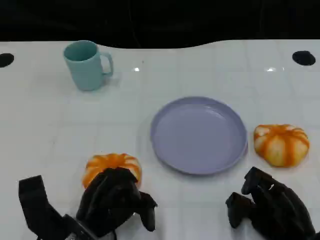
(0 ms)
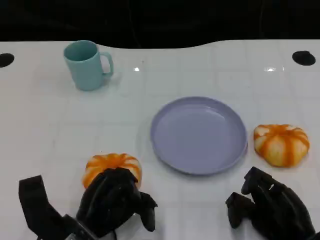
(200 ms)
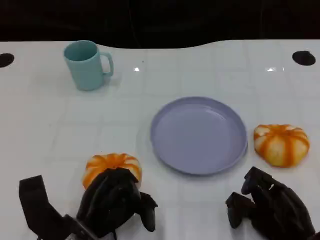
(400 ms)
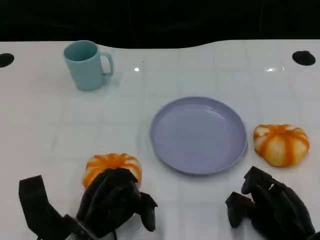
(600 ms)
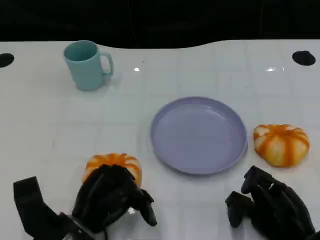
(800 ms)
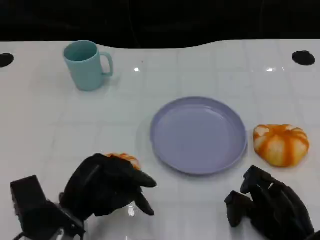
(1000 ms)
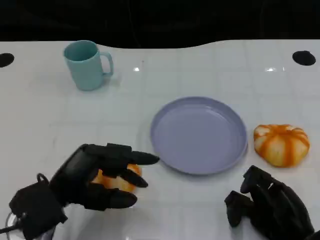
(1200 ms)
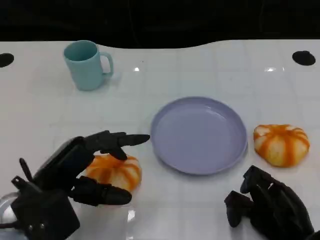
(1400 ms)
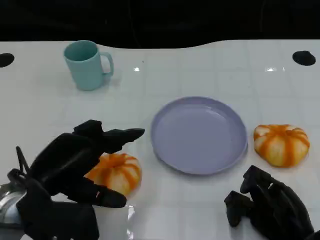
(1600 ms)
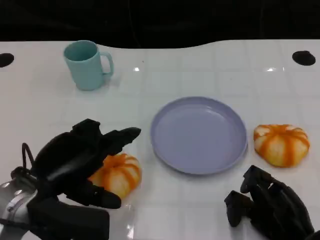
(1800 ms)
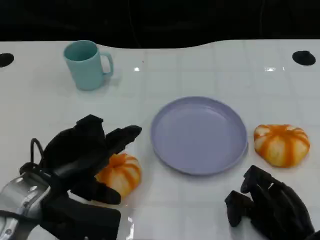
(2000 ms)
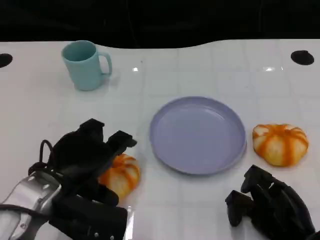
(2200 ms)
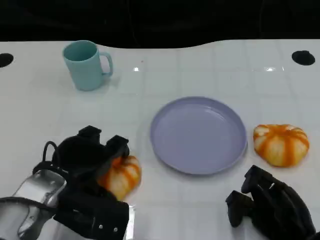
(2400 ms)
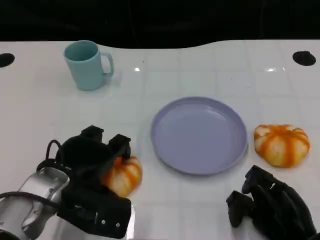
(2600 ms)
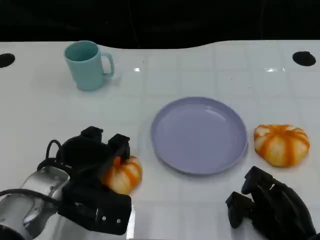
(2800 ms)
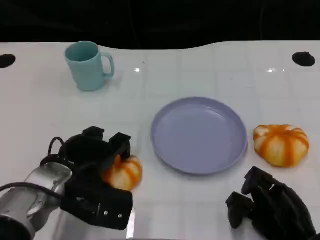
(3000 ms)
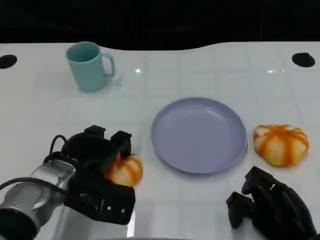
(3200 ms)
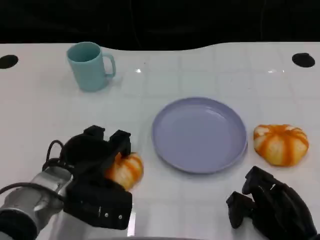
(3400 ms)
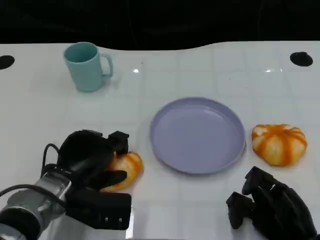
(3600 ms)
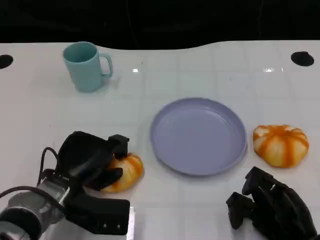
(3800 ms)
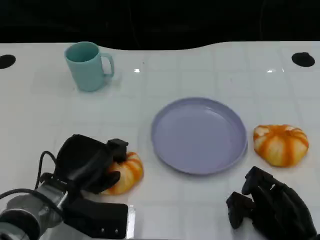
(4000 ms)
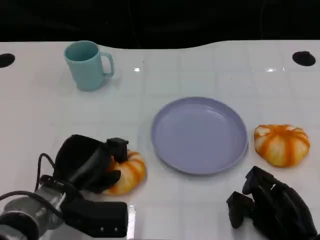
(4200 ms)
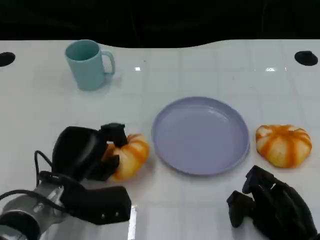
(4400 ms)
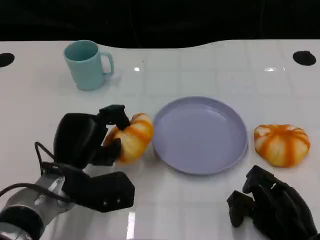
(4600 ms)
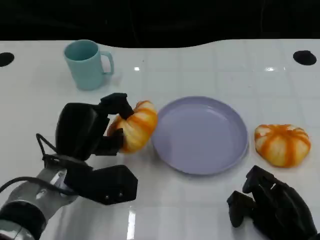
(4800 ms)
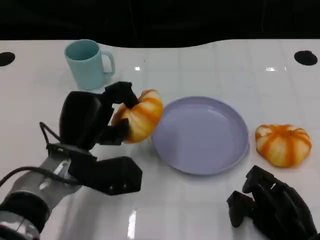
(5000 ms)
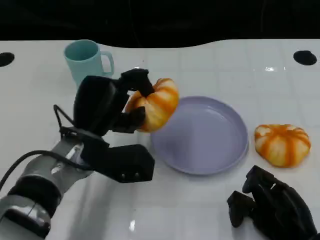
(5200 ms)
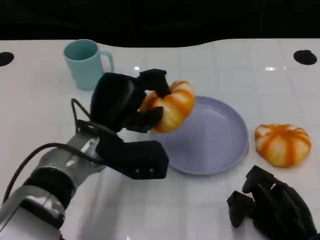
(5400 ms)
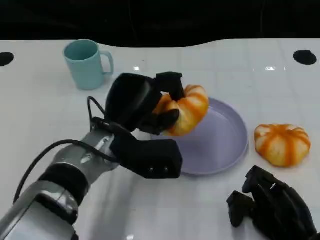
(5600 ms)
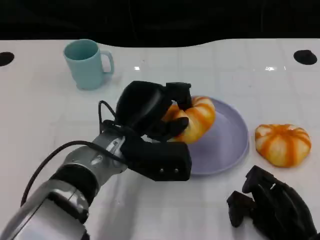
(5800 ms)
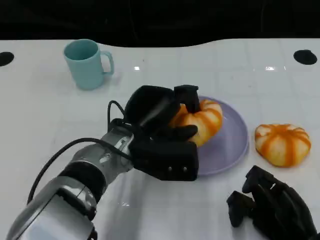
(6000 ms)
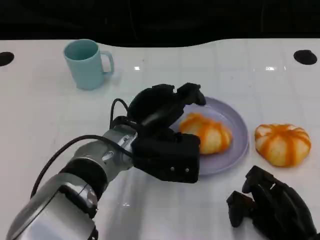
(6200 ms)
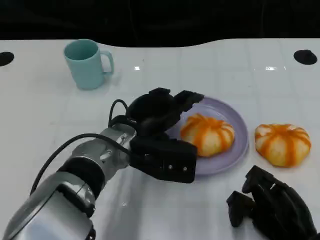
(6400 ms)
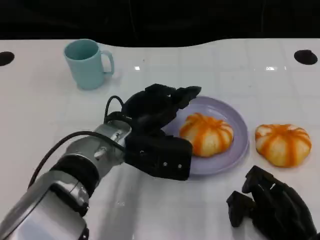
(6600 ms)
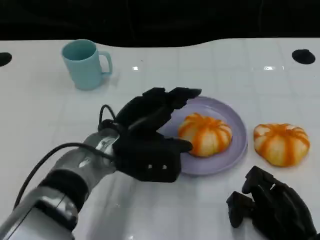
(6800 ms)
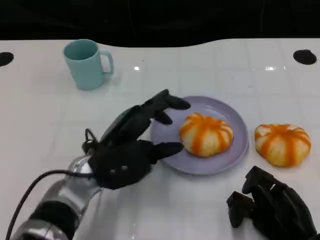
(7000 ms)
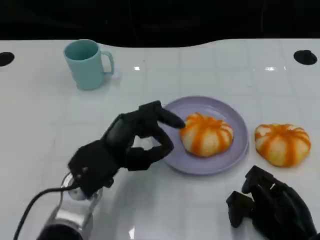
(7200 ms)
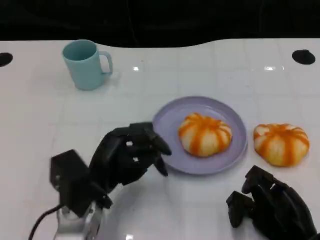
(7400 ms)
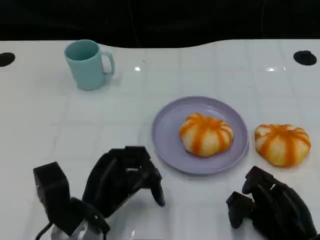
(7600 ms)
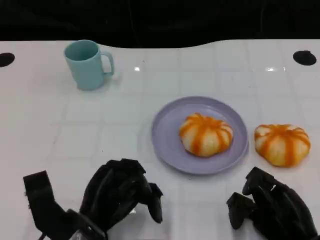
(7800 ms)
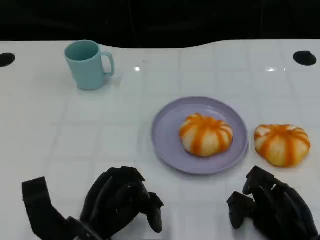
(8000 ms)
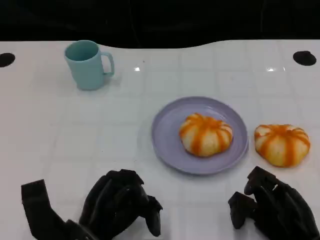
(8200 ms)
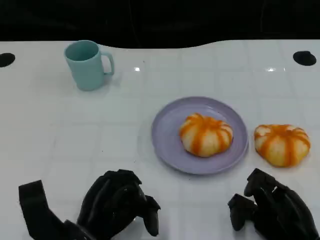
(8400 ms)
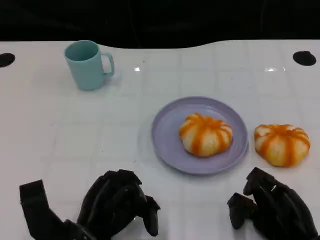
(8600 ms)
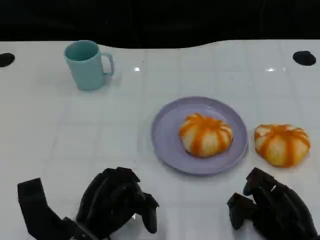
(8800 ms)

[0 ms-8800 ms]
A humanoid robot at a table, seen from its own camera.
Task of the whole recording: Grasp the bread from the table and place it into the plate.
0 ms to 1400 ms: The left hand shifts approximately 10 cm upward and to the left.
1400 ms to 3000 ms: The left hand shifts about 5 cm forward.
4400 ms to 5800 ms: The left hand moves to the right and upward, some 10 cm.
5800 ms to 7400 ms: The left hand heads backward and to the left, covering roughly 10 cm.
7400 ms to 8800 ms: The left hand ends up roughly 5 cm from where it was.

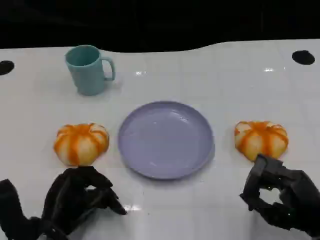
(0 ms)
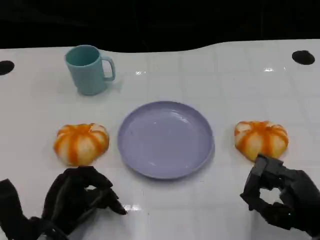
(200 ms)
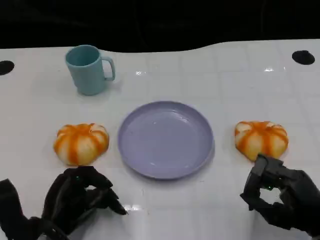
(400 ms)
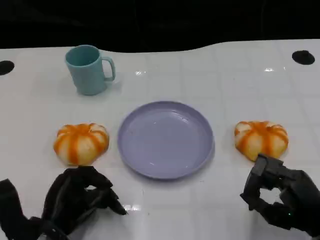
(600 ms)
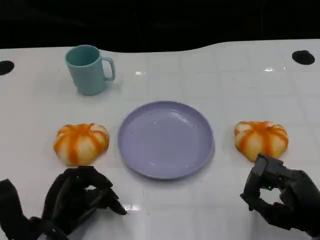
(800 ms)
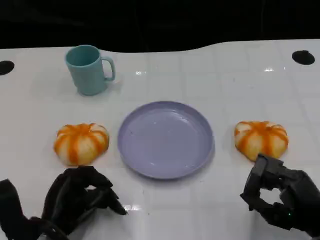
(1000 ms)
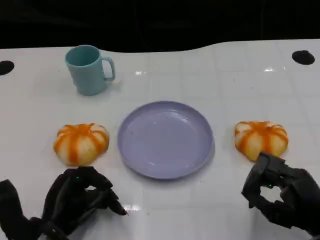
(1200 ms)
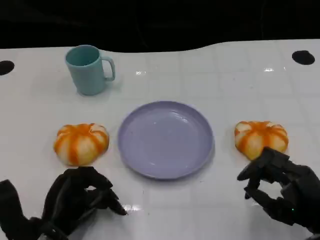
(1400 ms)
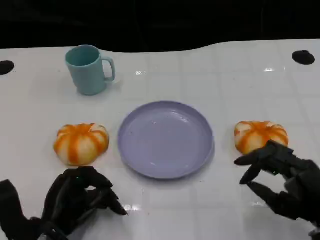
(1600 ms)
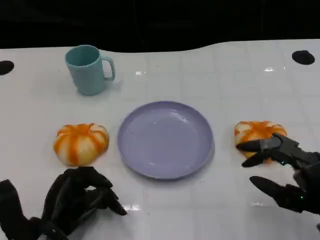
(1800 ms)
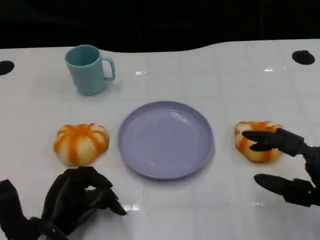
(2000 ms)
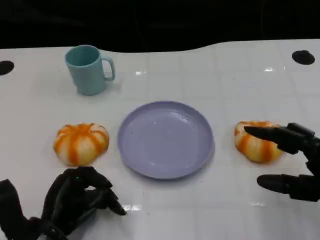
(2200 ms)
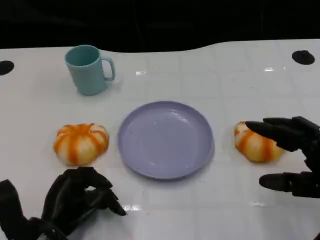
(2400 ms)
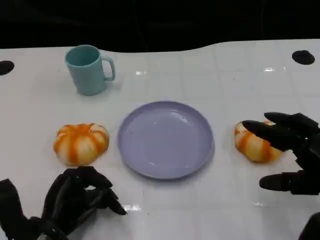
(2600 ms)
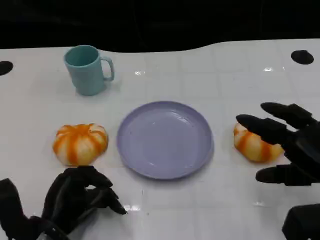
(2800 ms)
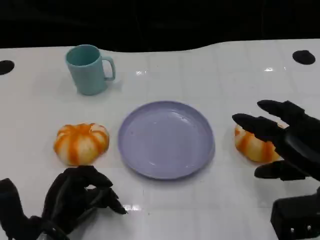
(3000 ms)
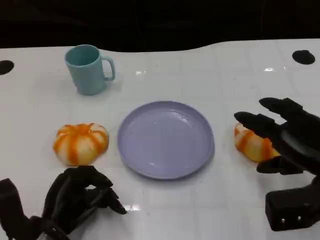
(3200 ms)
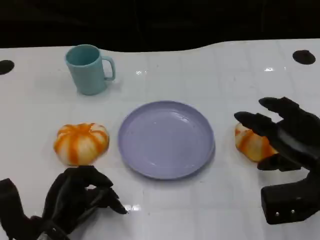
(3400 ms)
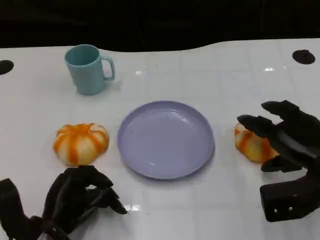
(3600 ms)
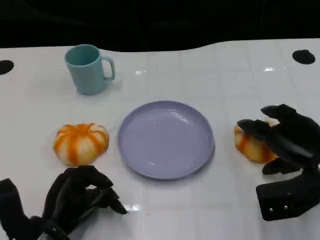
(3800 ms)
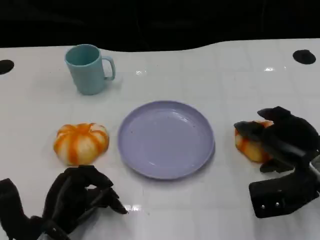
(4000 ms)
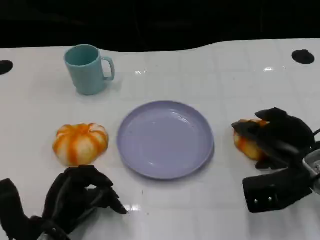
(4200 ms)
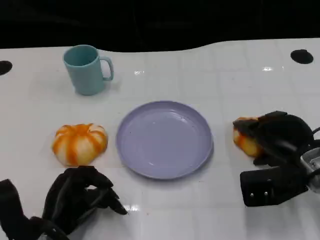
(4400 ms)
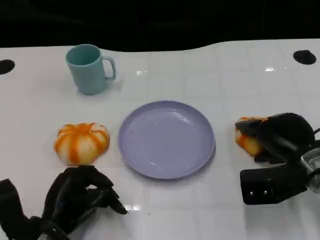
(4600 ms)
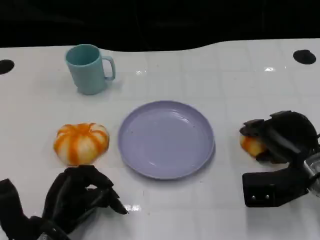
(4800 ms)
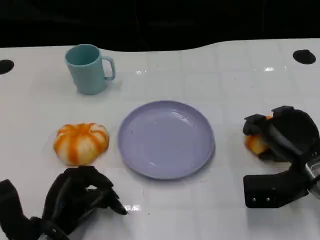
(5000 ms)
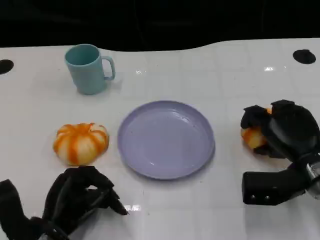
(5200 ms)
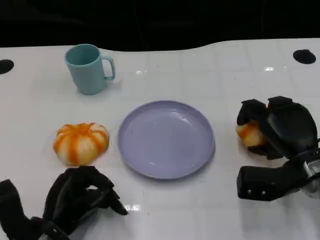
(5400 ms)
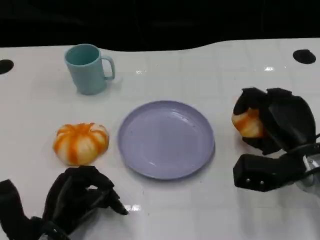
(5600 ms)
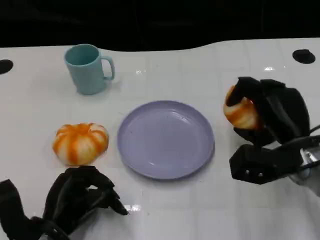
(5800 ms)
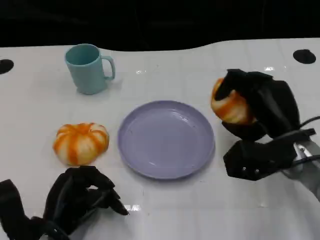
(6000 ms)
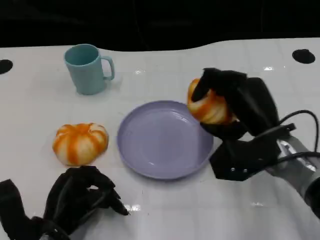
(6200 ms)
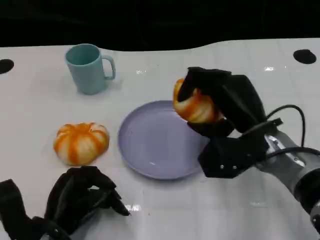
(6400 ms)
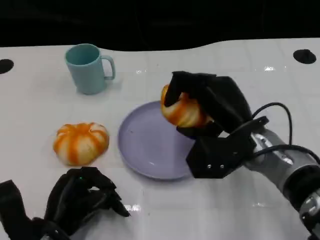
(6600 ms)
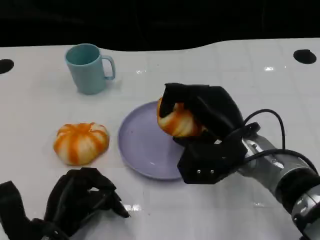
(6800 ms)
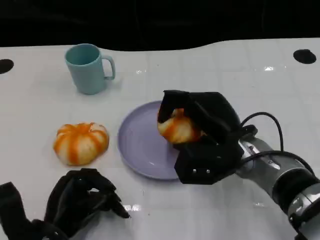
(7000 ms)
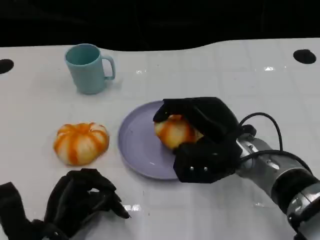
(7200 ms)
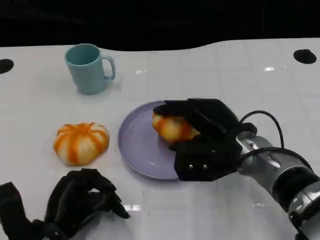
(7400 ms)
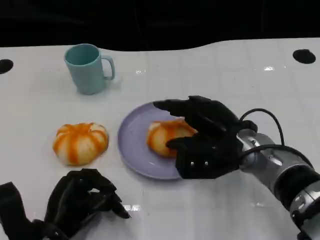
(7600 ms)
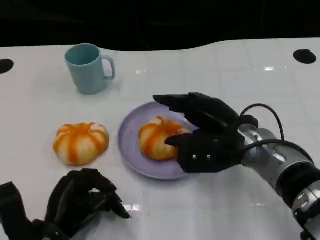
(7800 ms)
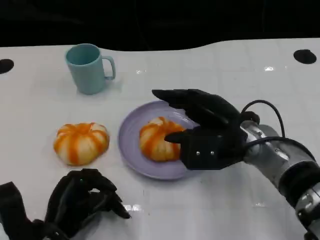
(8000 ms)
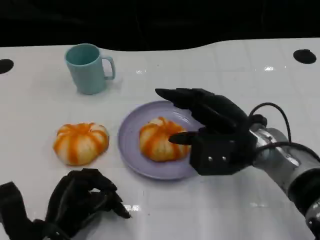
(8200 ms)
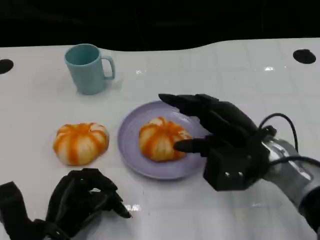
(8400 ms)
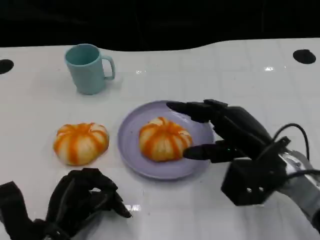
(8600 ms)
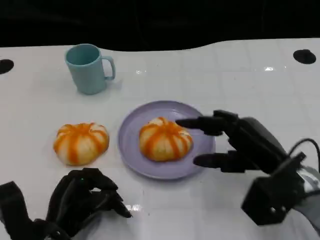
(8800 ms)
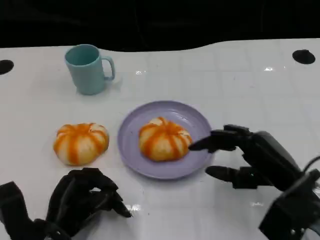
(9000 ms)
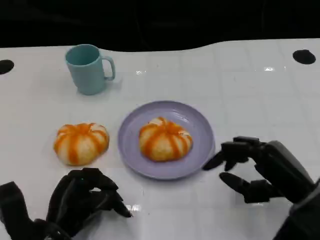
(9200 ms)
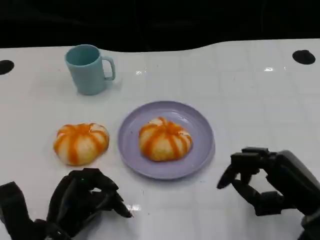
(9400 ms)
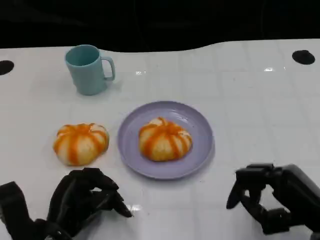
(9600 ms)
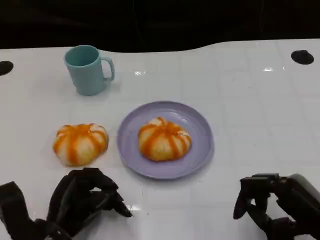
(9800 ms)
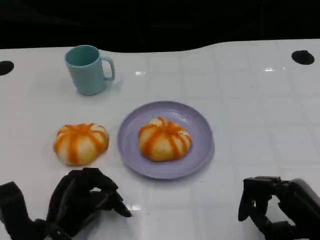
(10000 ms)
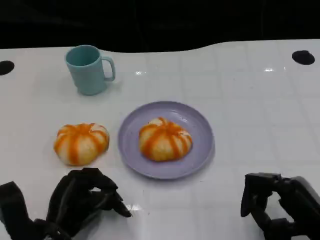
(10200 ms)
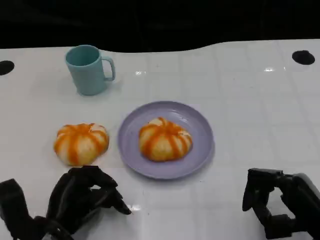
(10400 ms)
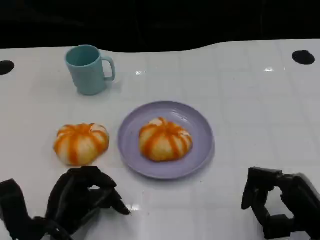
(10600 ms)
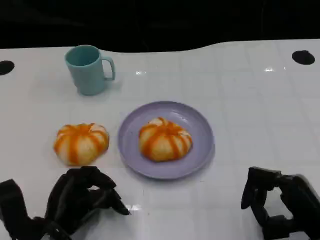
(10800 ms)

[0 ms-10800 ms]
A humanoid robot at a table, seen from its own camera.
Task of the whole recording: Grasp the bread from the table and place it into the plate.
0 ms to 1600 ms: There are only small adjustments of the hands.
1600 ms to 3000 ms: The right hand heads forward, covering approximately 5 cm.
3000 ms to 4600 ms: The right hand shifts approximately 5 cm forward.
4600 ms to 6200 ms: The right hand heads to the left, covering approximately 5 cm.
7800 ms to 9200 ms: The right hand shifts about 15 cm to the right and backward.
9200 ms to 10800 ms: The right hand shifts by some 5 cm.

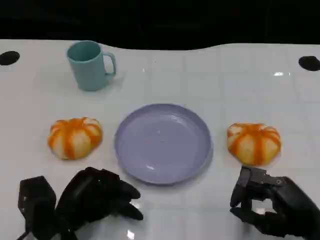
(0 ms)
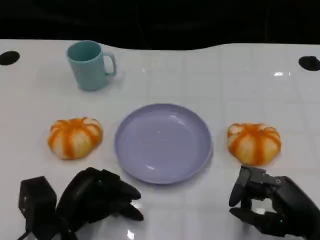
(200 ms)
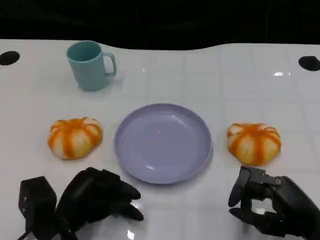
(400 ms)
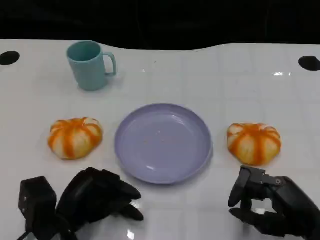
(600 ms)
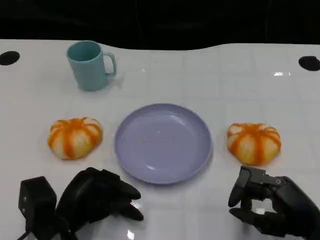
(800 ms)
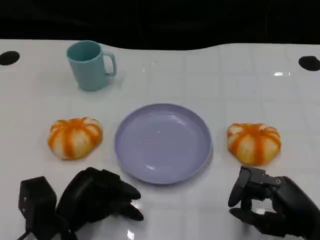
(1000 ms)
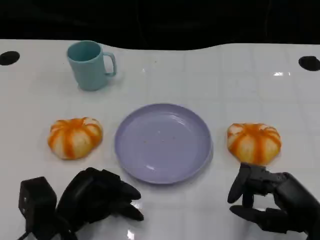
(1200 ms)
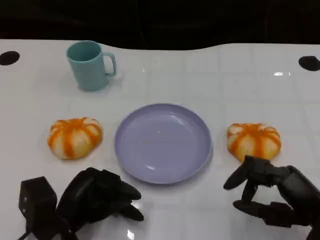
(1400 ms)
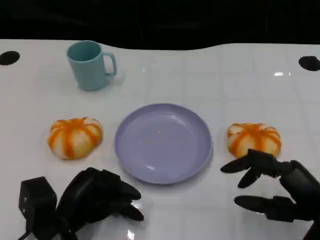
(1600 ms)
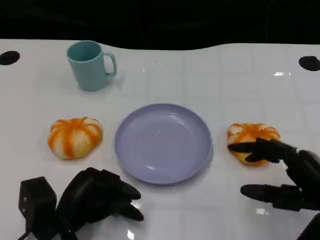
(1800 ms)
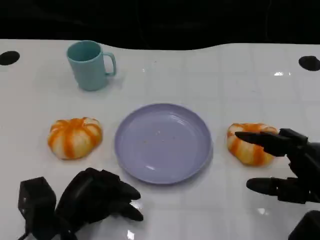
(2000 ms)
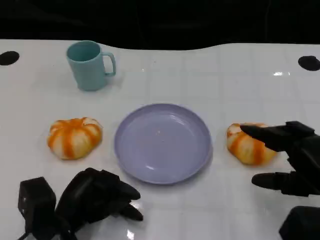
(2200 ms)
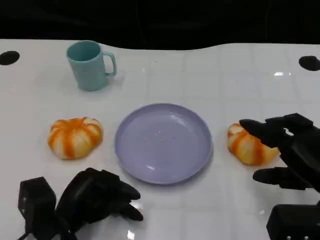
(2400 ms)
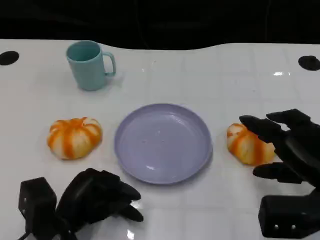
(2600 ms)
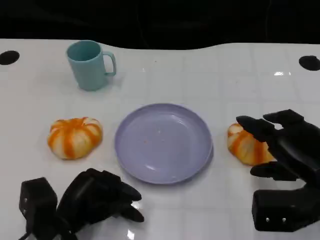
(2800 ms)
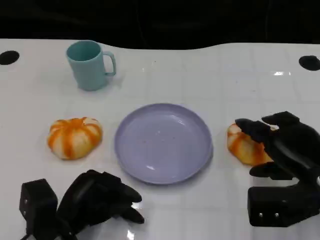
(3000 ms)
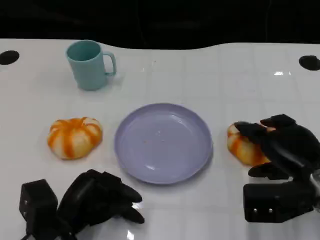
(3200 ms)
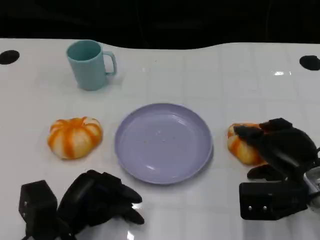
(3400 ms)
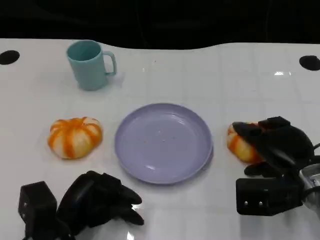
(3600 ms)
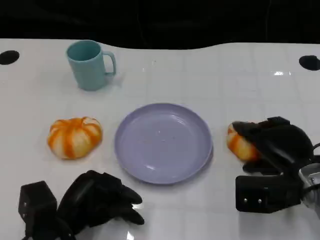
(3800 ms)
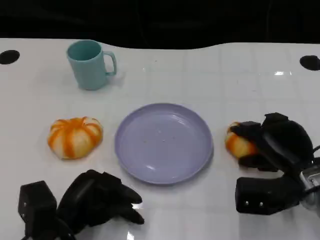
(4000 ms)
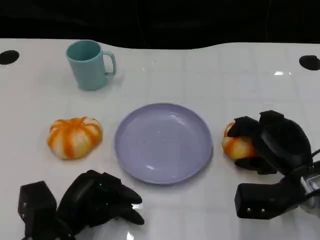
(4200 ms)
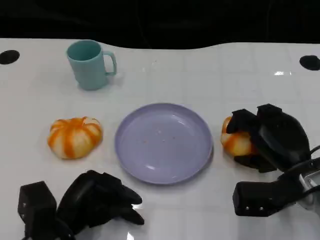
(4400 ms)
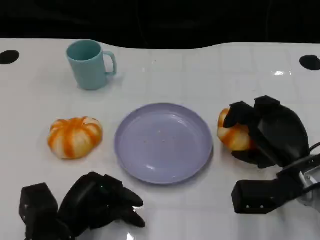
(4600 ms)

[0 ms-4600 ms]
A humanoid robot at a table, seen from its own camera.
Task of the whole recording: Grasp the bread from the table and place it into the plate.
0 ms to 1600 ms: There are only small adjustments of the hands.
1600 ms to 3000 ms: The right hand moves forward, approximately 5 cm.
